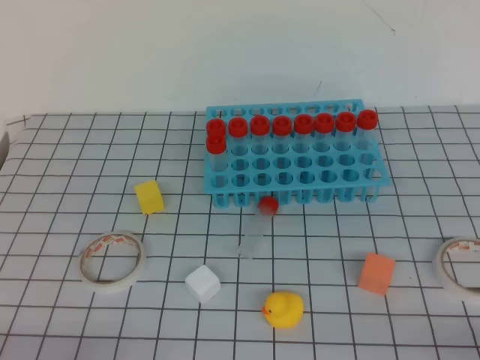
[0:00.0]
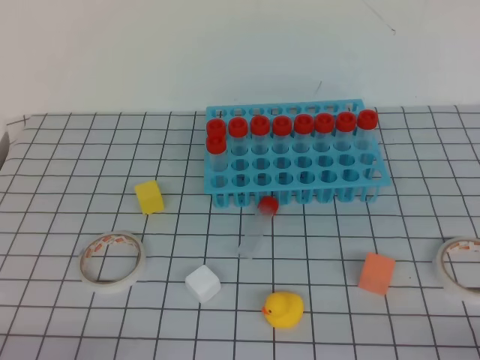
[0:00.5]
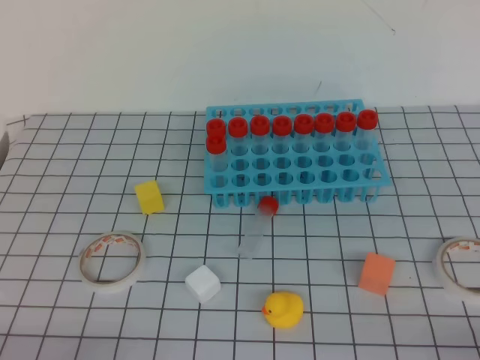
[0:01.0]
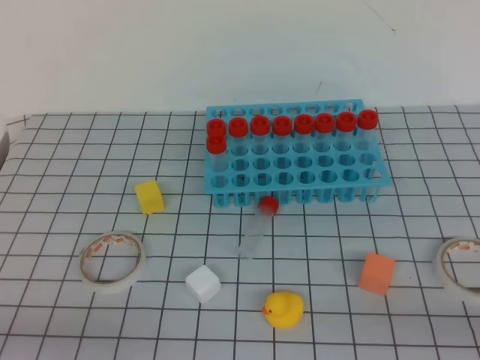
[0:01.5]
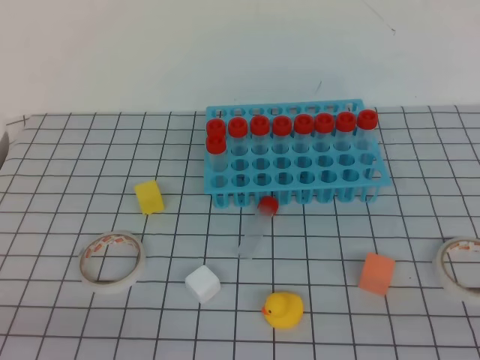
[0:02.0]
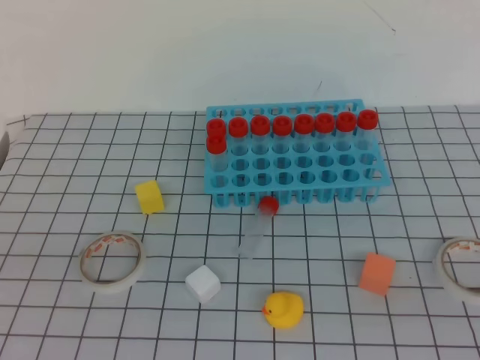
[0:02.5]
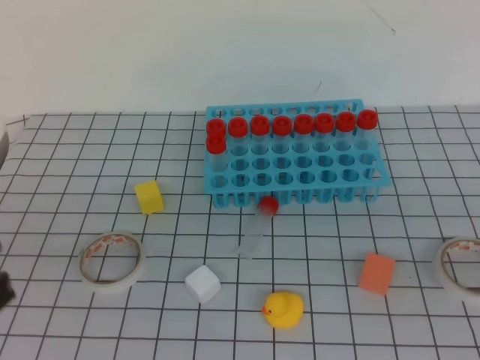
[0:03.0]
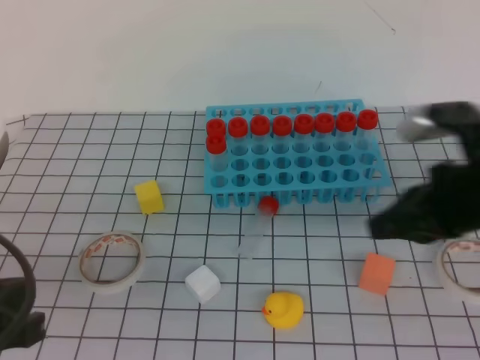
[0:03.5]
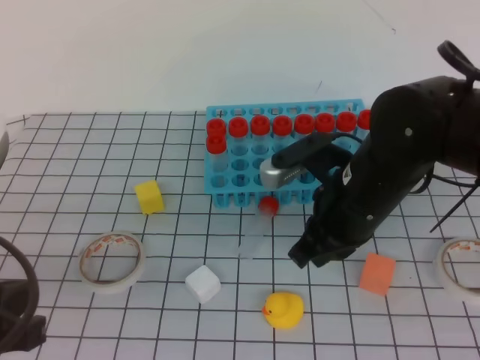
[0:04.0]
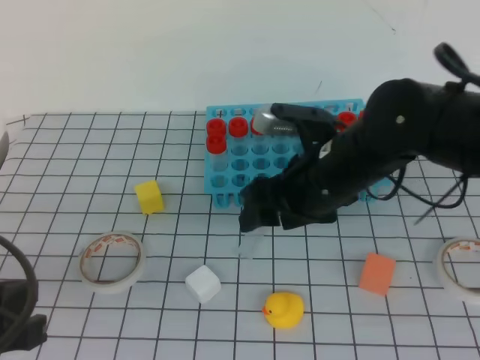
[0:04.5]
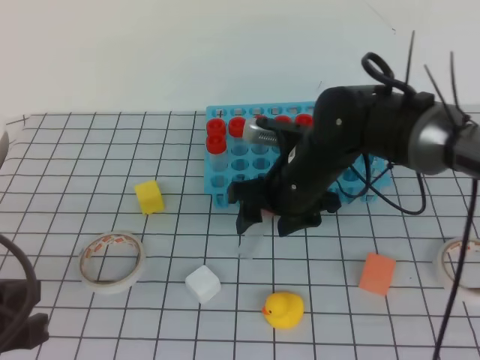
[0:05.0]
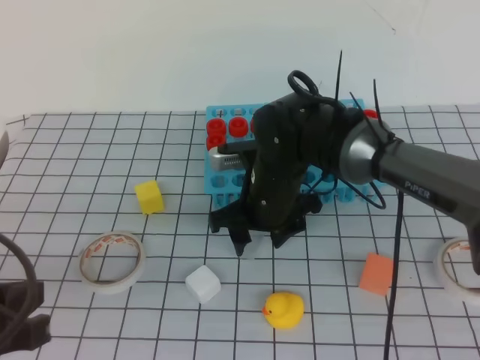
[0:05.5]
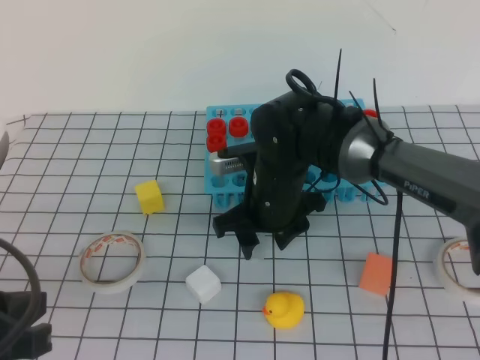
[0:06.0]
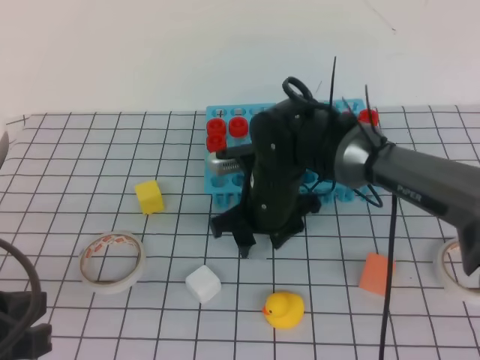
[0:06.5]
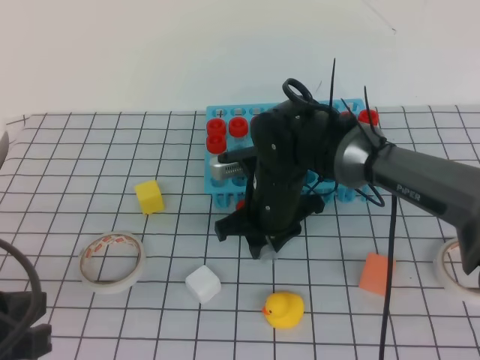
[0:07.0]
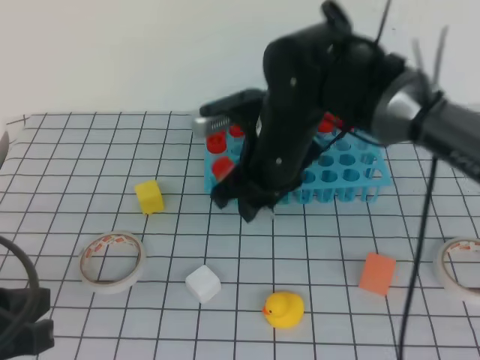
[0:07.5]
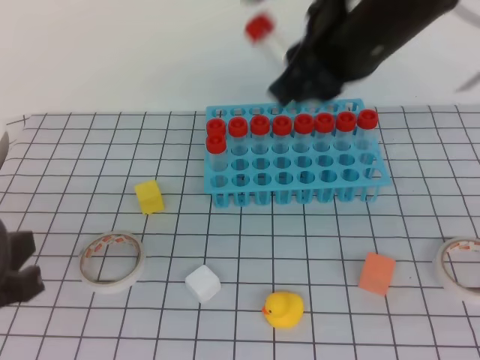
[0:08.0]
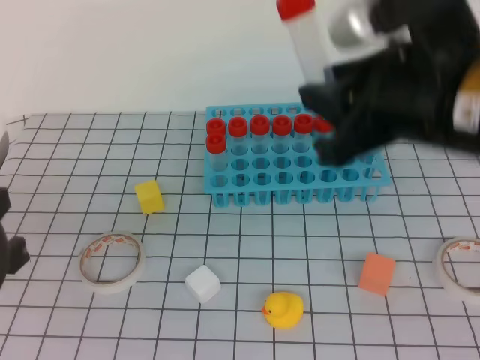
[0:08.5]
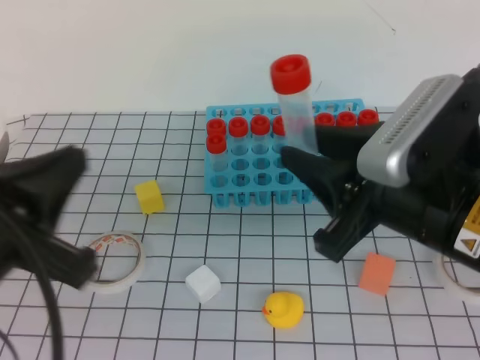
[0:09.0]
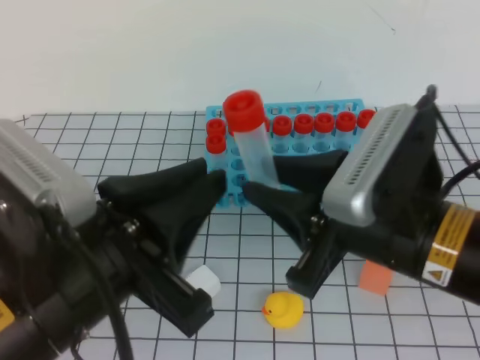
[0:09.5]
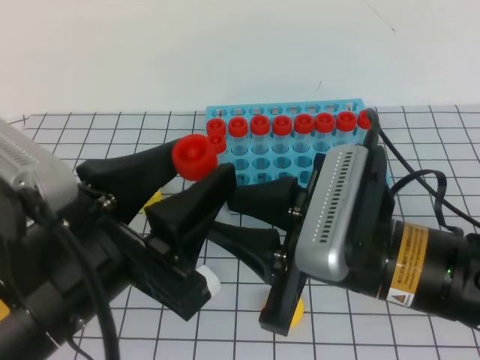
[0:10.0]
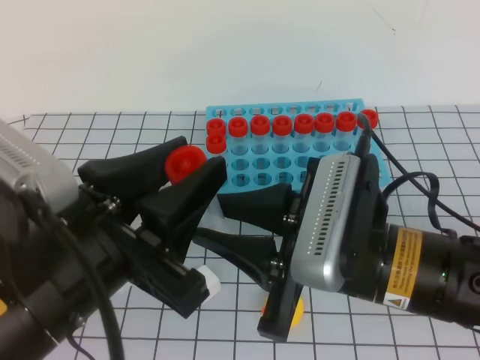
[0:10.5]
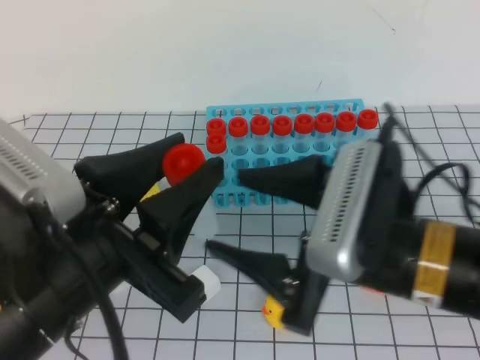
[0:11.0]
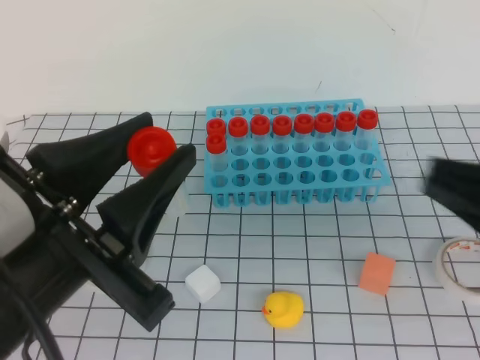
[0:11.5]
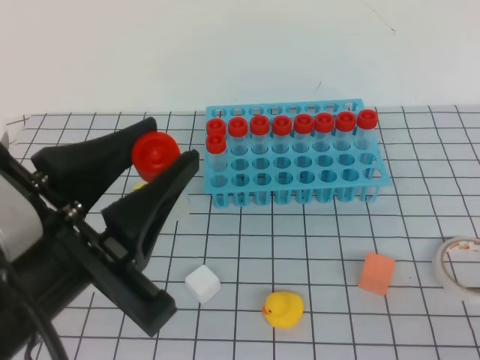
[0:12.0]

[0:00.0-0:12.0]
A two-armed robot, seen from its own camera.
0:02.0 to 0:04.0: The right gripper goes some 35 cm forward and to the left. The left gripper shifts some 10 cm forward.
0:04.0 to 0:06.0: The right gripper moves to the left, forward and downward, roughly 10 cm, and opens.
0:06.0 to 0:08.0: The right gripper travels upward by roughly 20 cm, and closes its fingers.
0:08.0 to 0:10.0: The left gripper travels to the right by roughly 10 cm, and opens. The right gripper goes roughly 15 cm backward and downward.
0:10.0 to 0:12.0: The right gripper shifts some 20 cm to the right and backward, and closes.

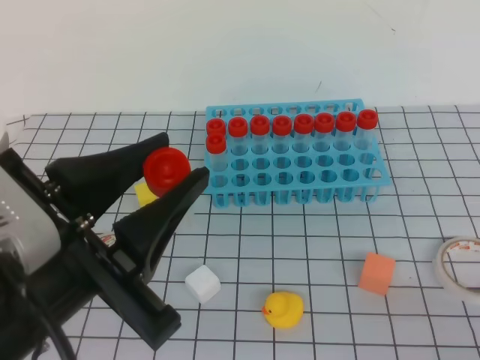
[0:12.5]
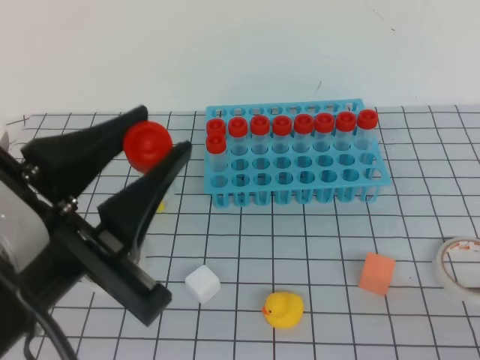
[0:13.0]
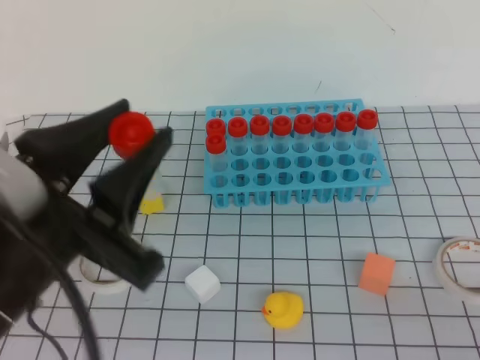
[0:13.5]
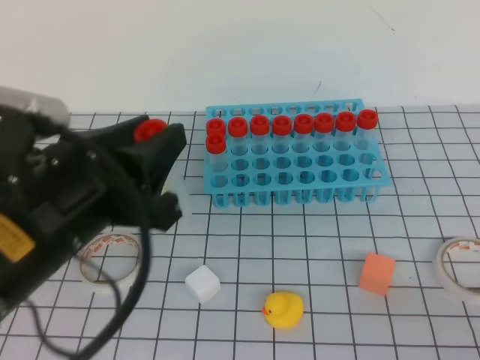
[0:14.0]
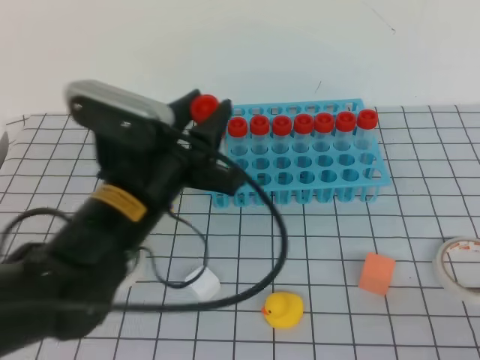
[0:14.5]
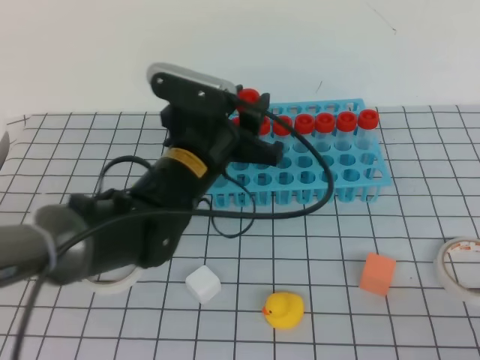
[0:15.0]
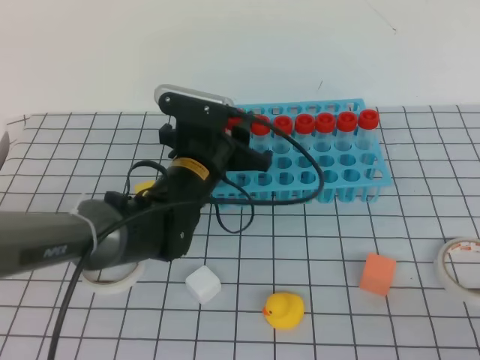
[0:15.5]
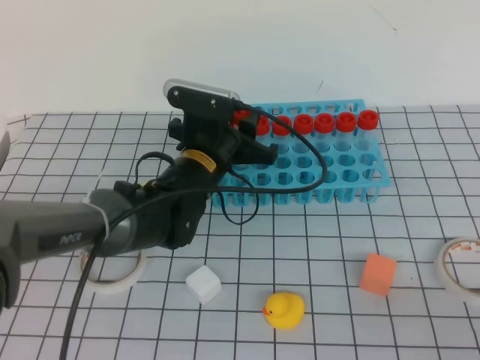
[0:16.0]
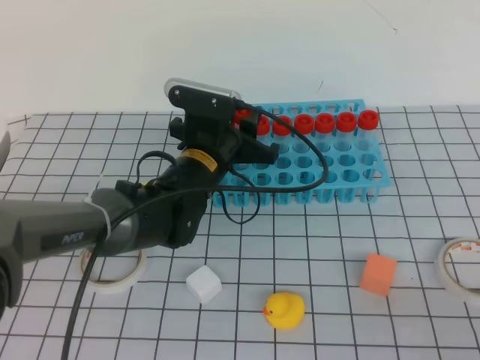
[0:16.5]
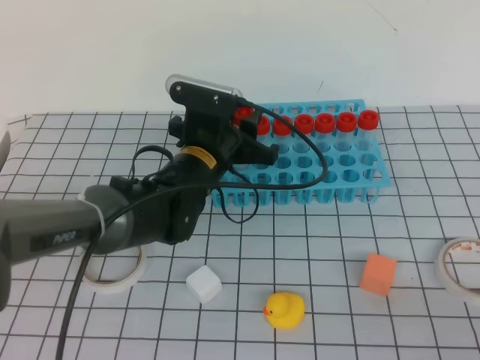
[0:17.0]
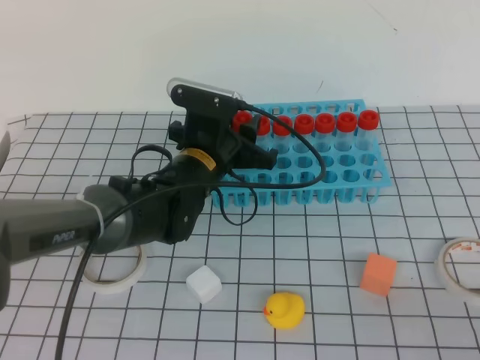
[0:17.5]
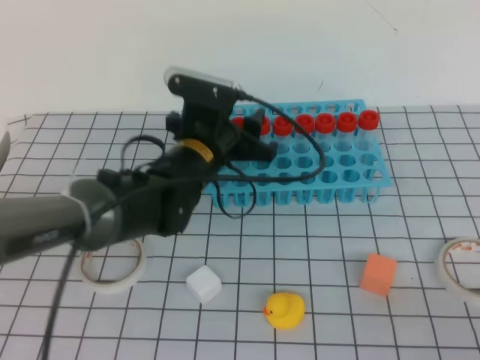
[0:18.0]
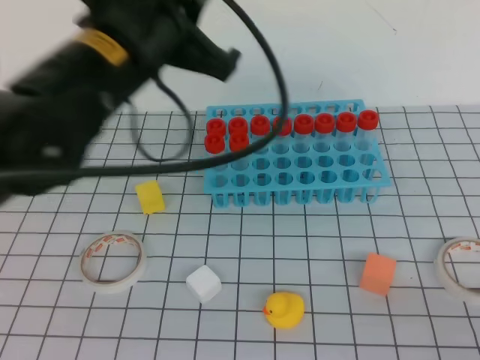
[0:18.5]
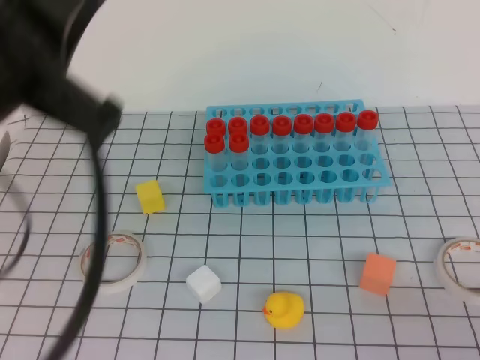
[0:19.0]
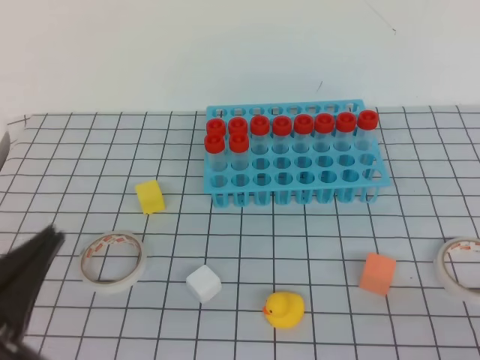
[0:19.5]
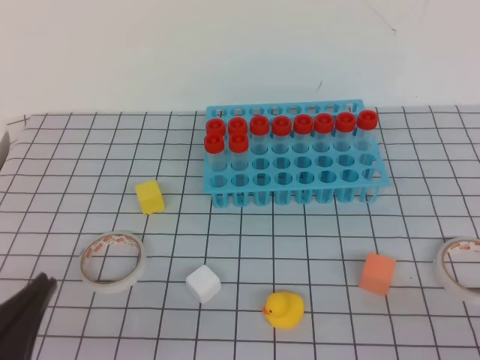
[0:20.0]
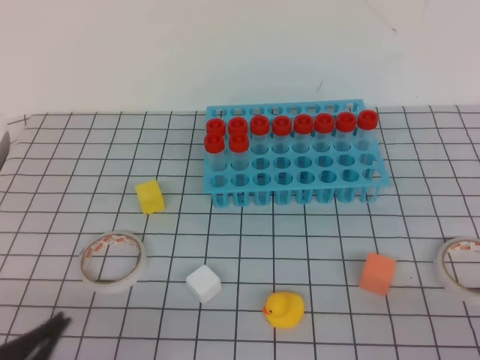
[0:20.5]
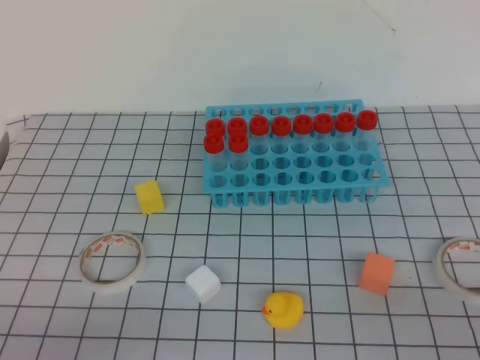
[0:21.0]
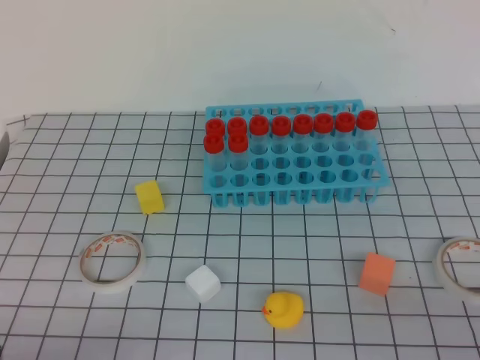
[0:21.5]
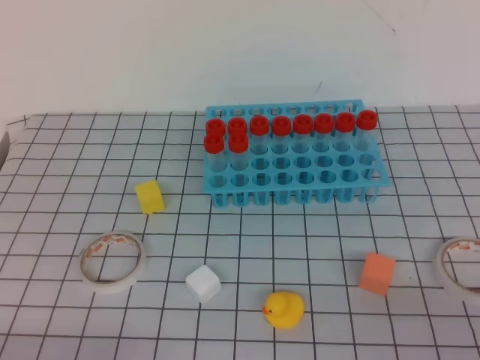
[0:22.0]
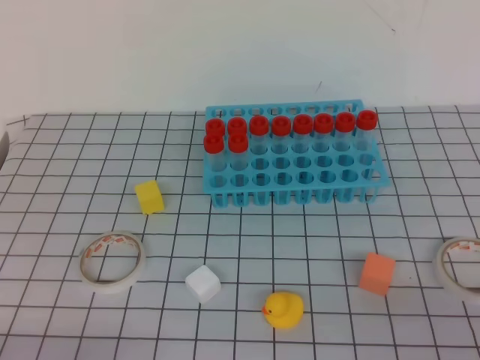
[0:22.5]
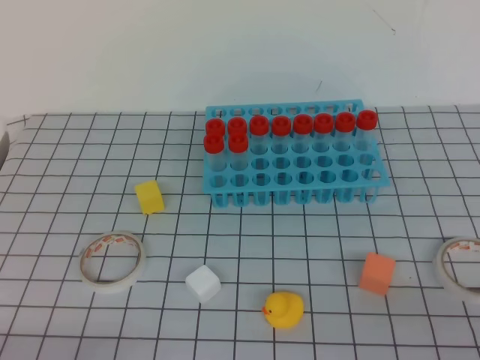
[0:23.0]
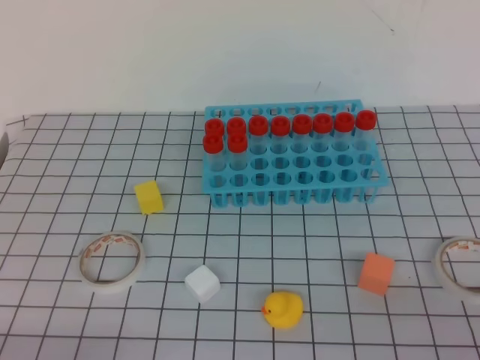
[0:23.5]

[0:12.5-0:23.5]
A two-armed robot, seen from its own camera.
0:12.5 to 0:14.5: The left gripper goes some 15 cm forward and downward.
0:14.5 to 0:16.0: The left gripper goes approximately 15 cm forward and downward.
0:16.0 to 0:18.0: The grippers move only a little.
0:18.0 to 0:20.0: The left gripper heads backward and to the left, covering some 35 cm, and closes up.
0:20.0 to 0:21.5: The left gripper moves downward, about 5 cm.

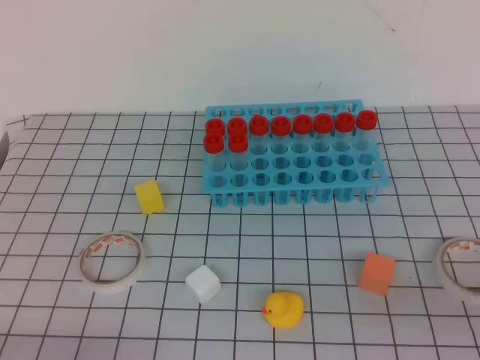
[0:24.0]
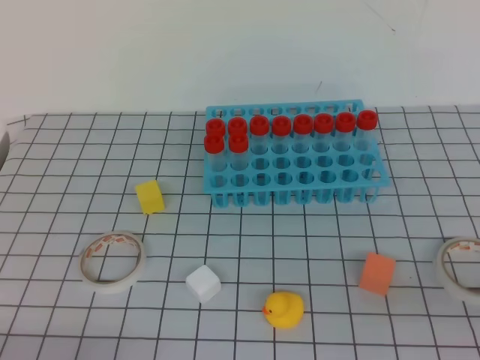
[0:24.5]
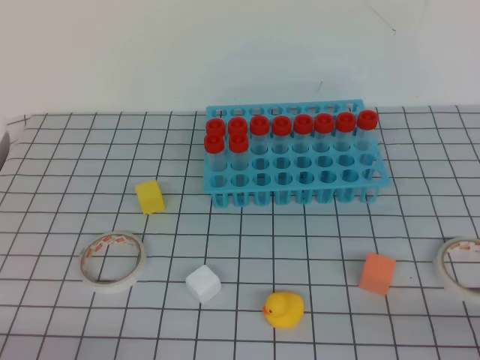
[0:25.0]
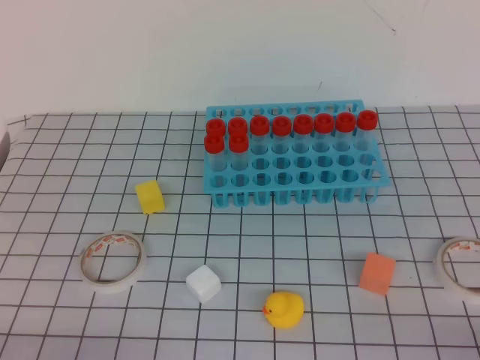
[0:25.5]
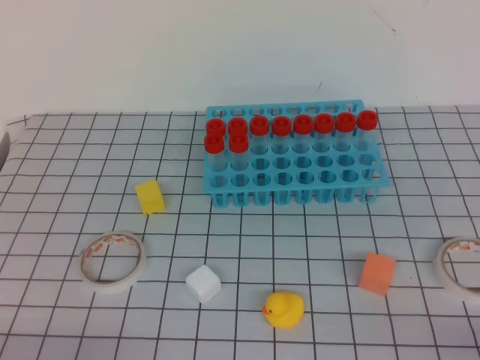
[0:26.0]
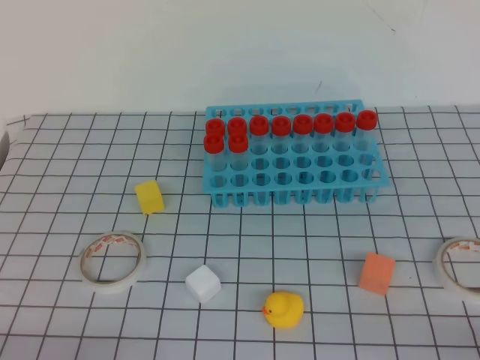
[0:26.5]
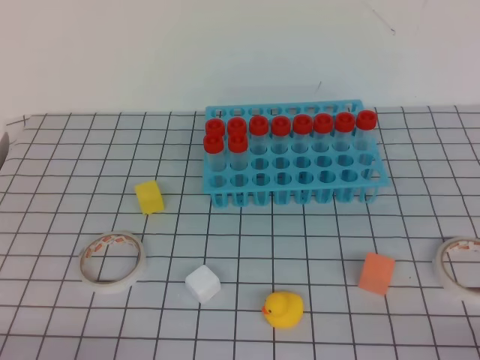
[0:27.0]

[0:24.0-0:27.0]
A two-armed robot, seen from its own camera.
0:24.0 to 0:25.5: The right gripper shifts approximately 5 cm downward.
